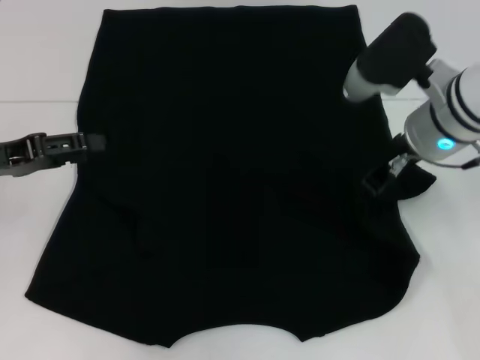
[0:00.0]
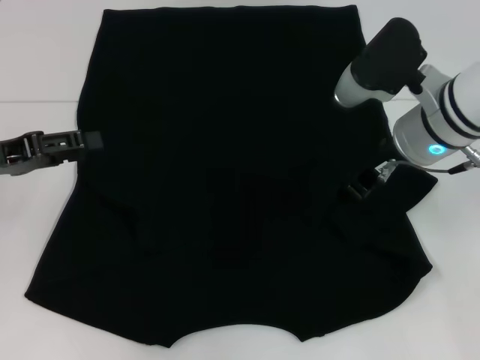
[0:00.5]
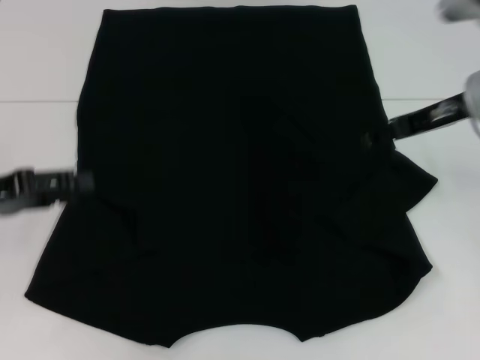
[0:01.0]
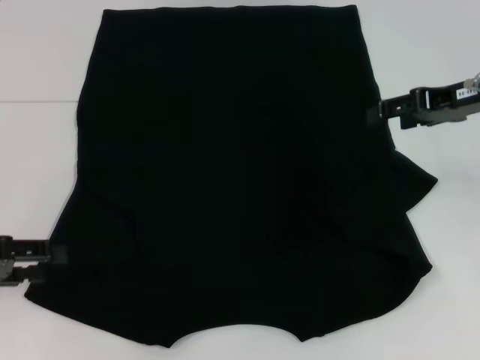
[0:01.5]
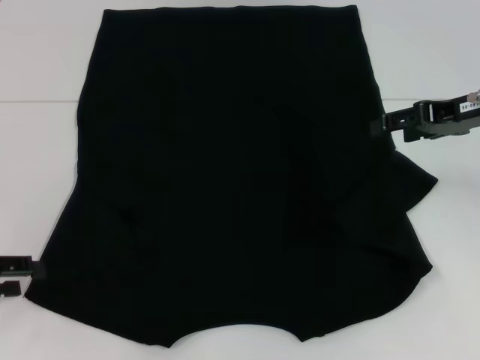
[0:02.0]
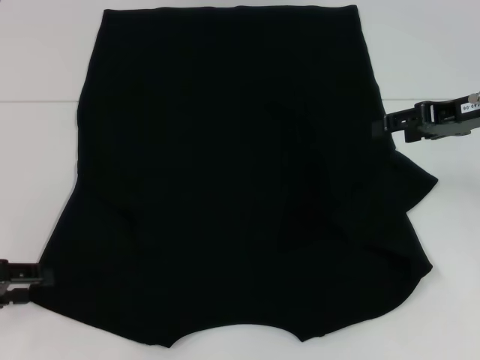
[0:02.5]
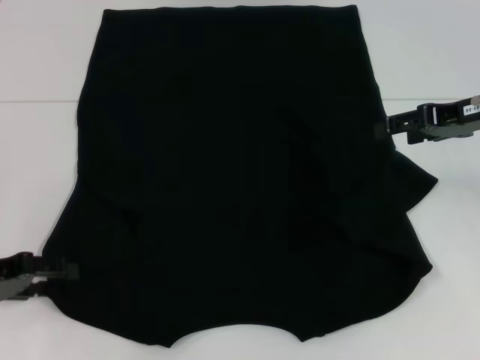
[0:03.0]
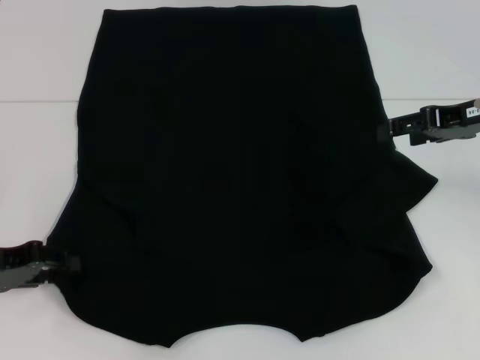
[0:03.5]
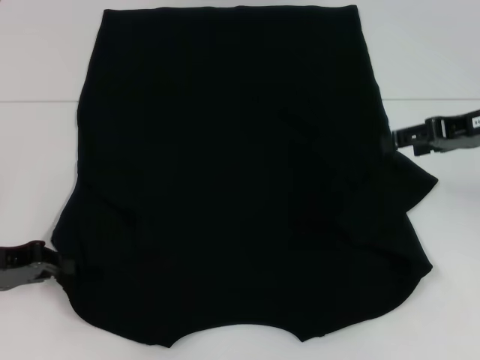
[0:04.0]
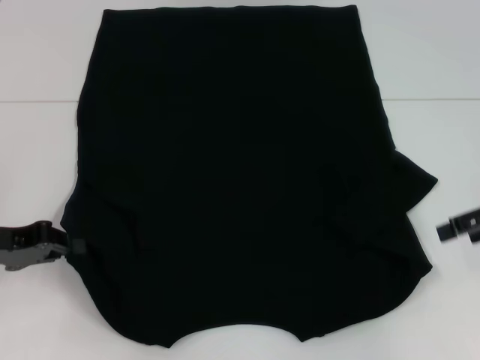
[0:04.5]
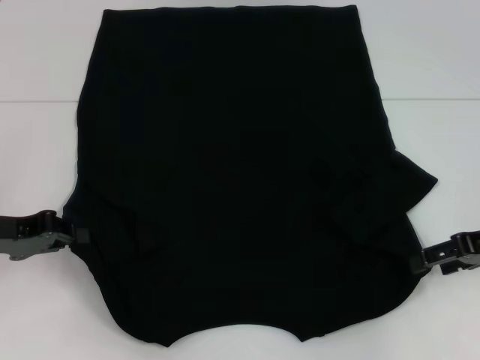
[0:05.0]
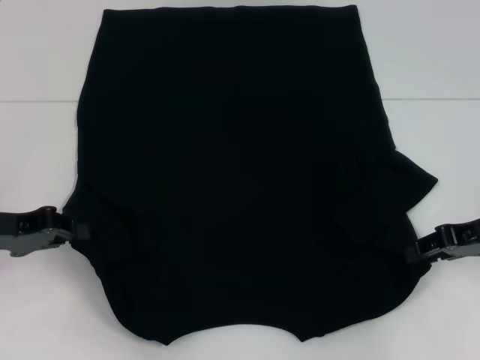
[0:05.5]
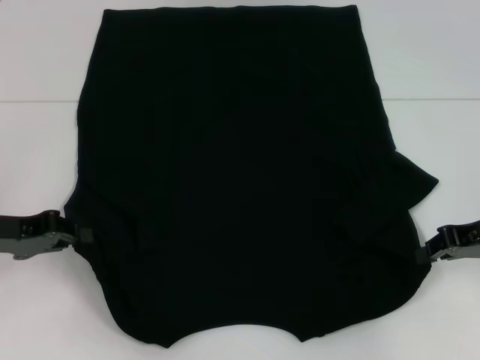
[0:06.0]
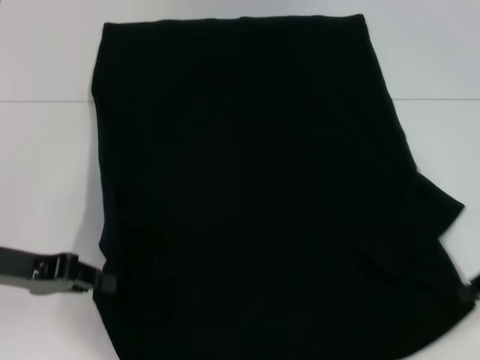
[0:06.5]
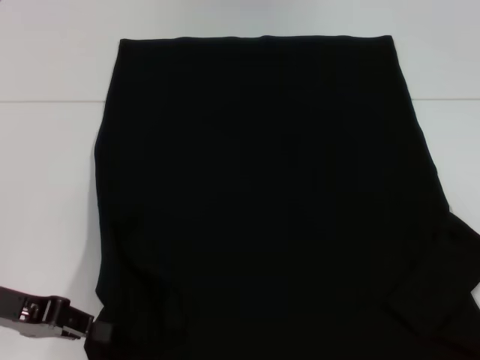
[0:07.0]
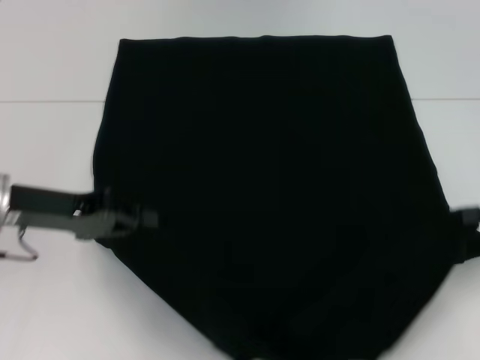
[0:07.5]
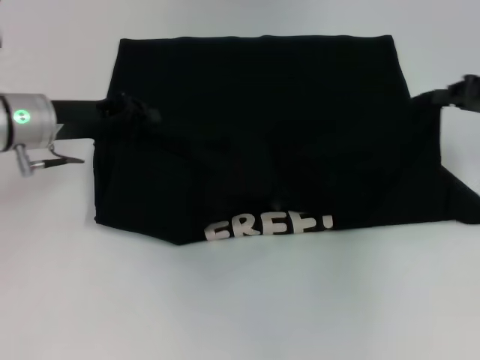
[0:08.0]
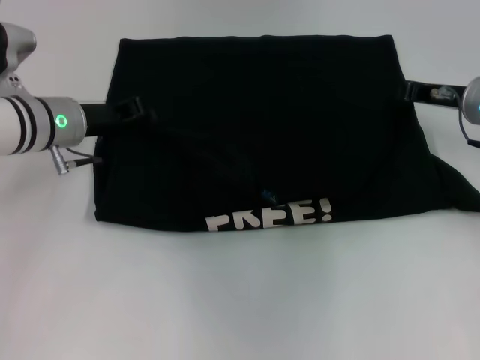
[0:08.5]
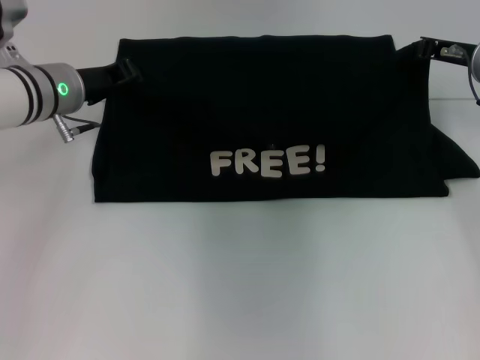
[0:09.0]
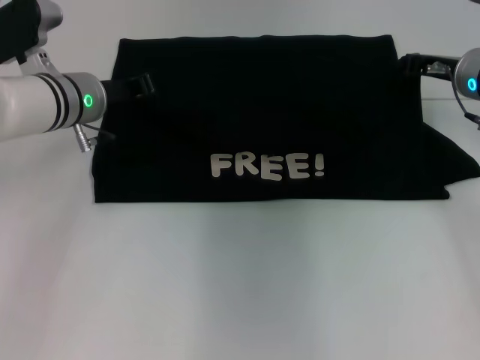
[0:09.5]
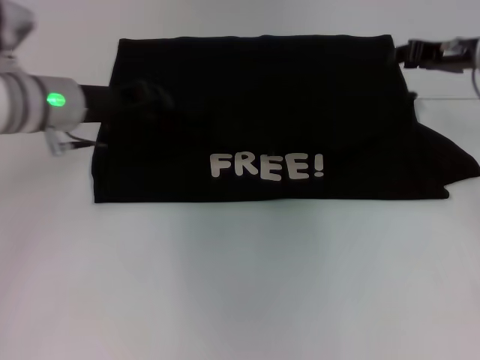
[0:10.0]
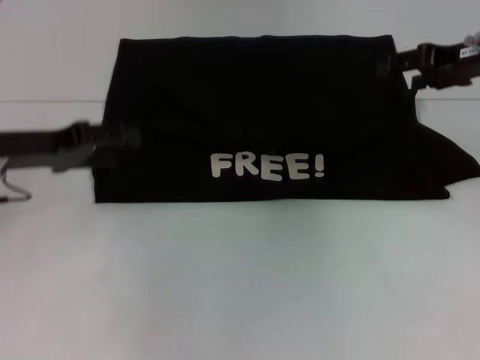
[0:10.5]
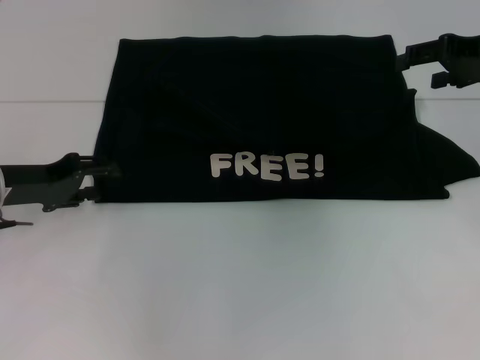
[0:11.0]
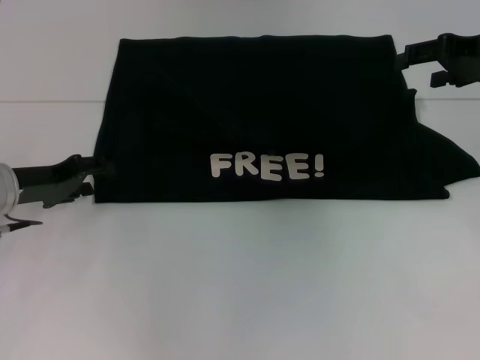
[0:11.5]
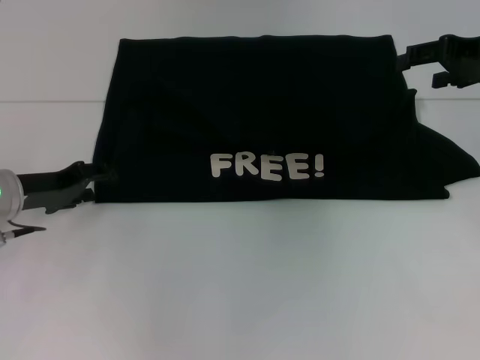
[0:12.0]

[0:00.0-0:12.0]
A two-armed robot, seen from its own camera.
Step, 0:00.5 to 0:04.0: Grab the bottom left corner with your left hand.
Step, 0:04.5 to 0:06.0: Grab the bottom right corner with your right hand.
Step, 0:06.5 to 0:10.0: Fold the clothes with your left hand.
Step, 0:06.5 to 0:10.0: Fold the clothes with your right hand.
0:00.0 to 0:02.0: The left gripper heads backward and downward, covering roughly 10 cm, while the right gripper goes about 10 cm to the right, and opens its fingers.
0:02.0 to 0:04.0: The left gripper closes up.
0:04.0 to 0:06.0: The right gripper moves downward and backward, about 10 cm, and closes its fingers.
0:06.0 to 0:08.0: The left gripper shifts some 10 cm forward and to the right, while the right gripper heads forward, covering some 5 cm.
0:08.0 to 0:10.0: The right gripper travels to the left and forward by approximately 10 cm.
0:10.0 to 0:12.0: The right gripper shifts by some 5 cm, and opens, while the left gripper is displaced downward, to the left and backward by about 10 cm, and opens up.

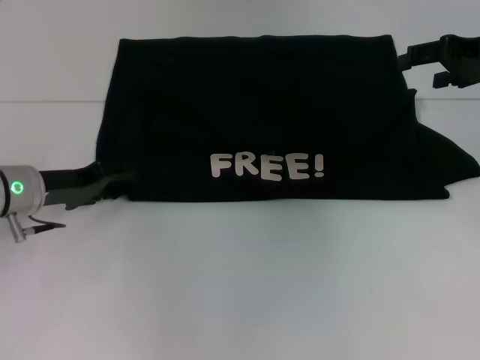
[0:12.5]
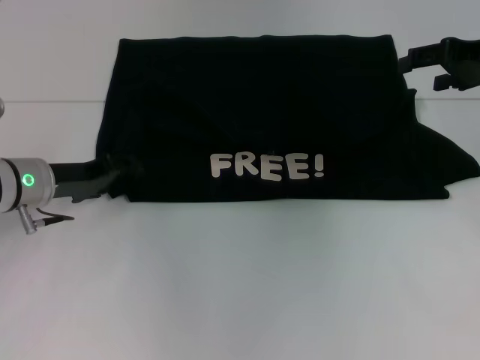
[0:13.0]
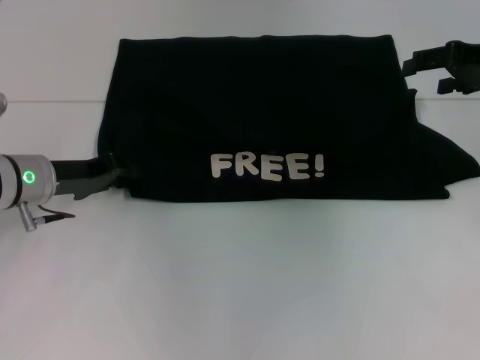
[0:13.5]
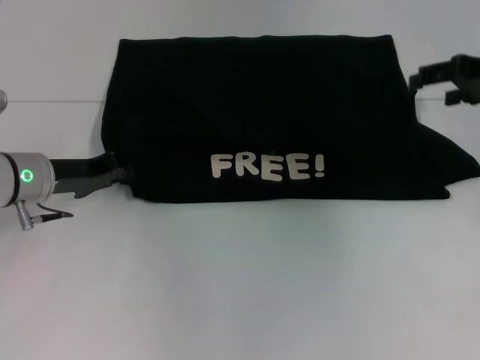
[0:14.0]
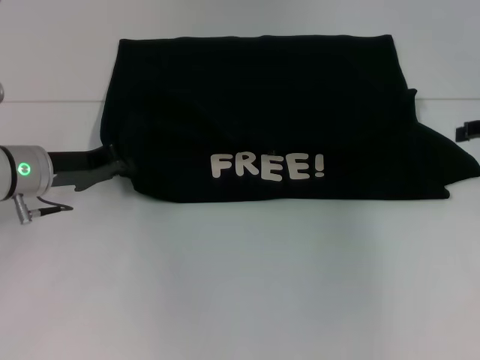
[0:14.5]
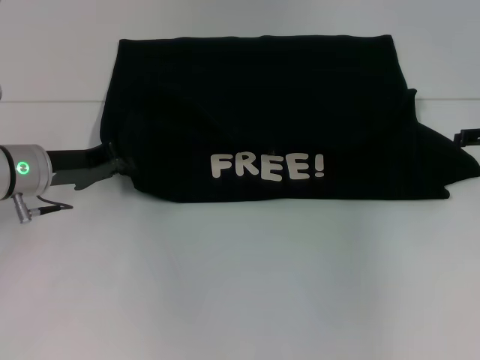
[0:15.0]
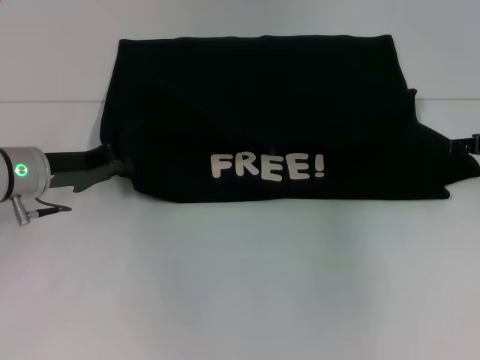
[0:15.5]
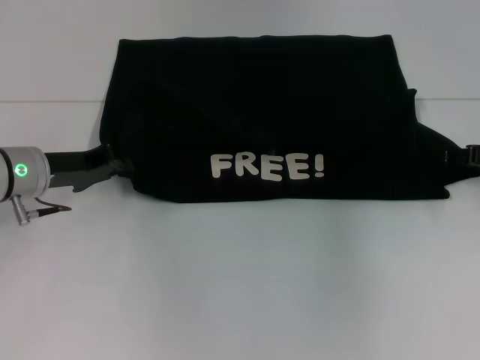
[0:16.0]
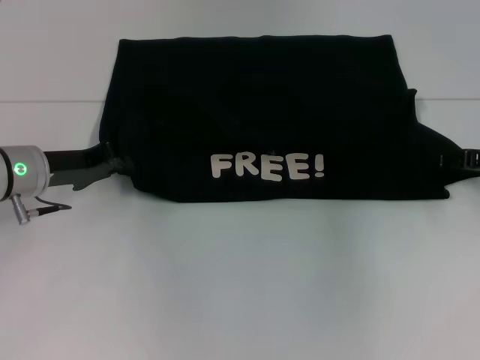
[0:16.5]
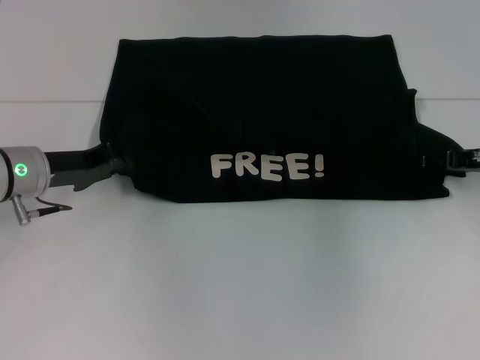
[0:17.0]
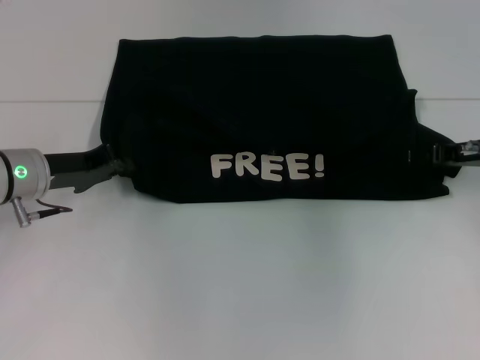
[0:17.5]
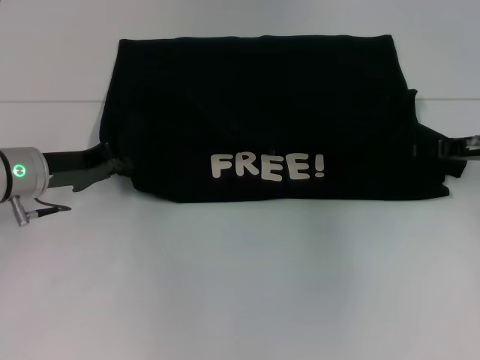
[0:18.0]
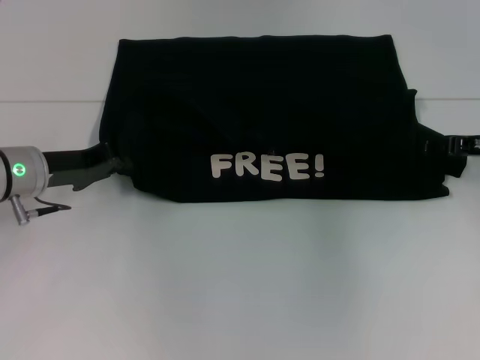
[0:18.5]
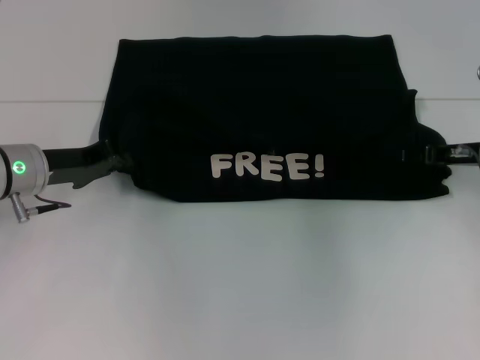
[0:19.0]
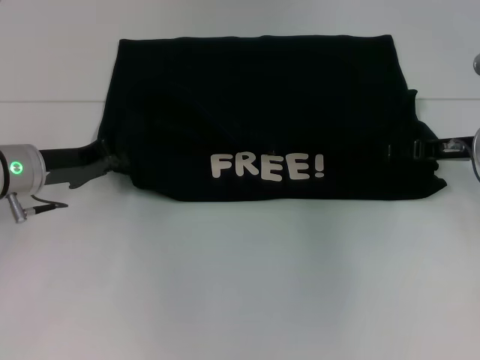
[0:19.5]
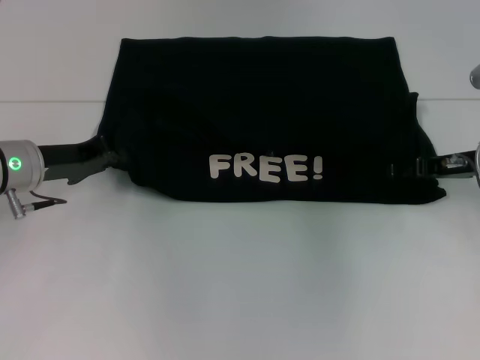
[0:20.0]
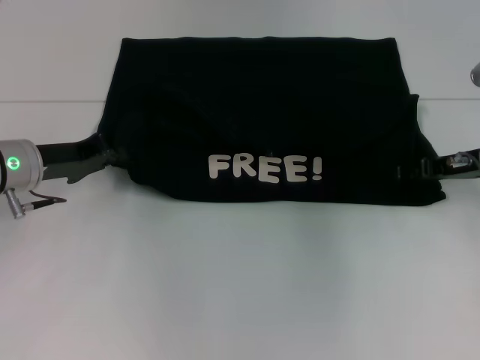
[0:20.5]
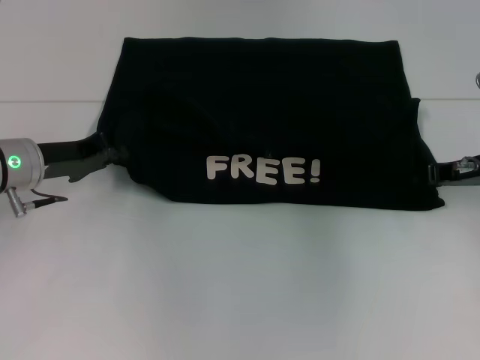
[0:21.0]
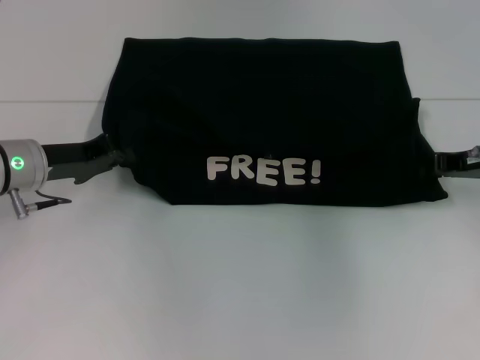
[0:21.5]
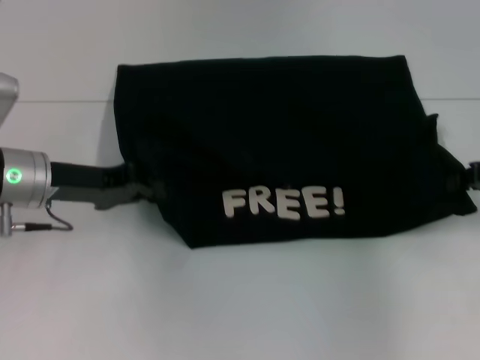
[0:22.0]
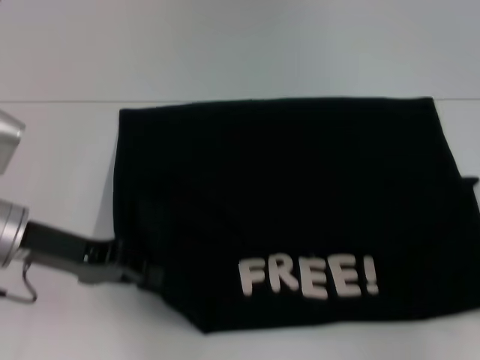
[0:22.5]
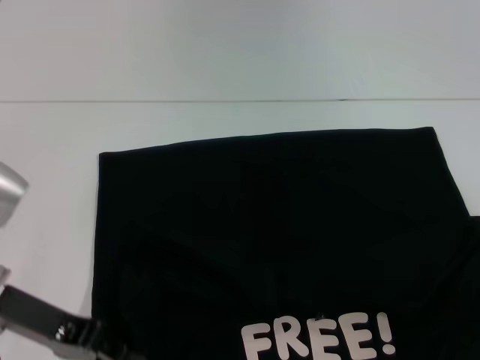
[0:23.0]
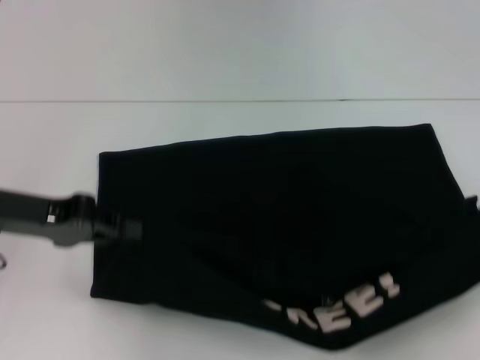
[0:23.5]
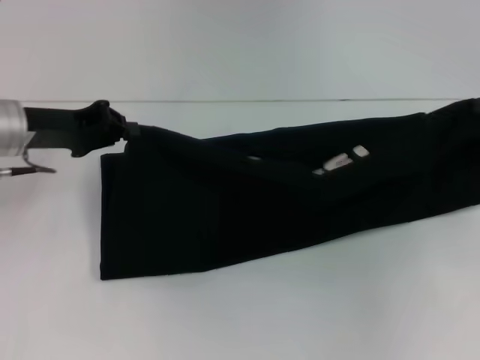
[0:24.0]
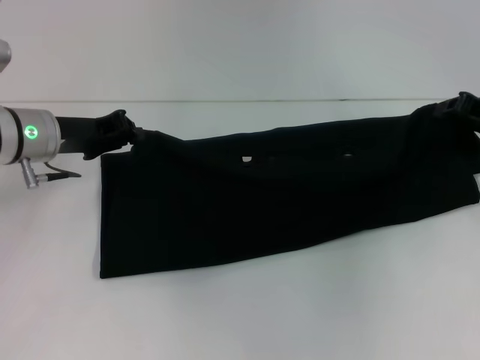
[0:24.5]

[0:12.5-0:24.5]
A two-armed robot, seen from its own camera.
Step, 0:12.5 to 0:22.5: Pull the clothes with your left hand.
Step, 0:12.5 to 0:22.5: Pull the clothes with your right hand.
0:12.5 to 0:14.5: The left gripper closes its fingers. The right gripper travels to the right and downward by some 10 cm.
0:18.5 to 0:20.5: The grippers stay close to where they were, moving slightly.
0:20.5 to 0:22.5: The right gripper moves backward and to the right, roughly 15 cm, and closes, while the left gripper is displaced backward by approximately 5 cm.
0:22.5 to 0:24.5: The left gripper goes roughly 10 cm forward. The right gripper shifts approximately 15 cm forward and to the left.

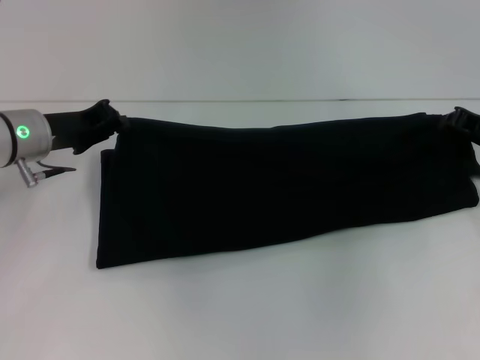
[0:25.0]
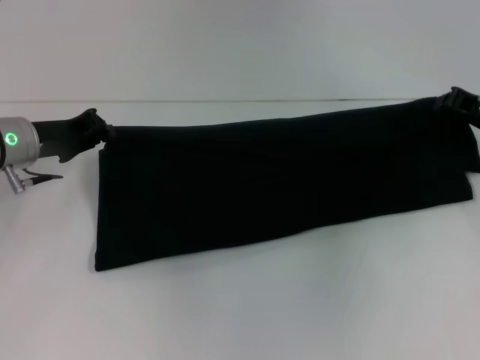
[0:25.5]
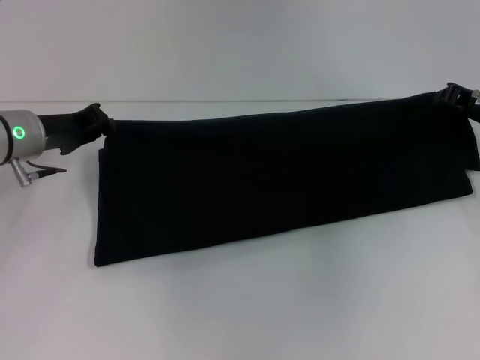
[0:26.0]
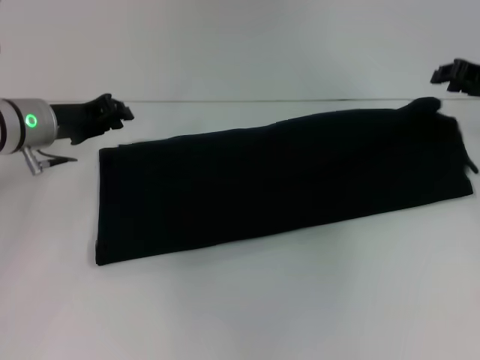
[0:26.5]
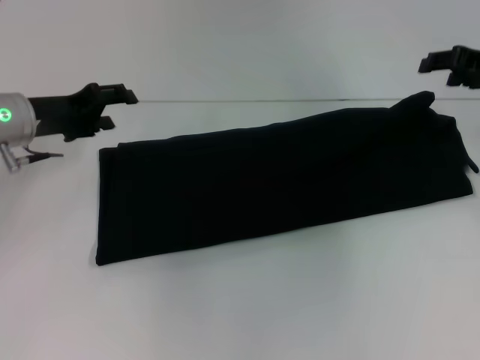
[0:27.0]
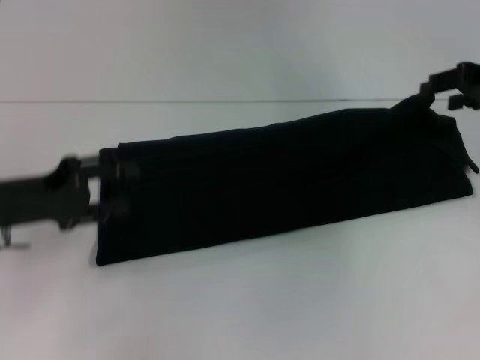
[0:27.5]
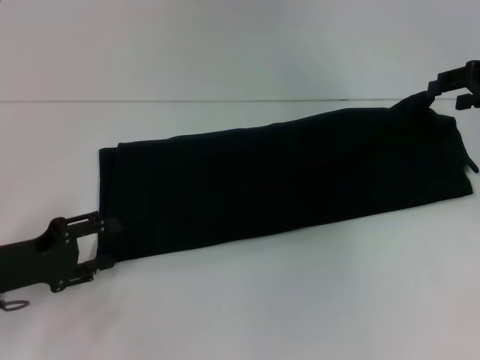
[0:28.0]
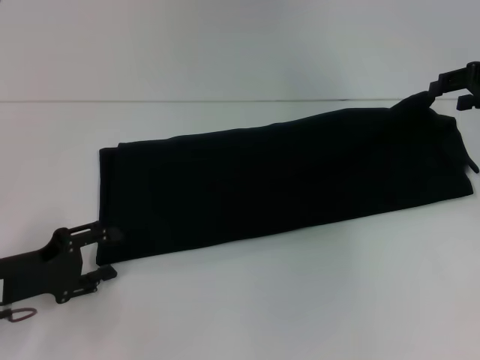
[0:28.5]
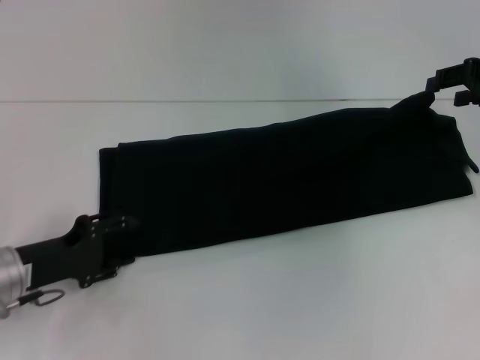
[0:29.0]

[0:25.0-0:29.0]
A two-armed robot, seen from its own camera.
0:25.0 to 0:27.0: The right gripper is displaced upward by roughly 10 cm, and opens up, while the left gripper opens.
0:27.0 to 0:29.0: The left gripper moves backward and downward, some 15 cm.
